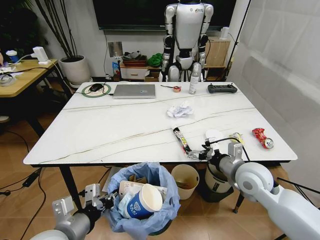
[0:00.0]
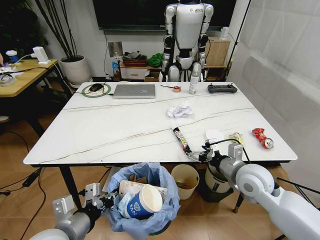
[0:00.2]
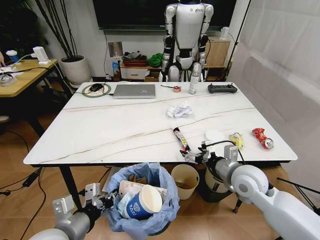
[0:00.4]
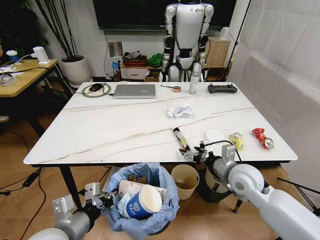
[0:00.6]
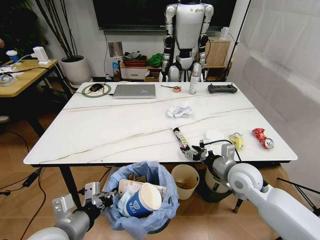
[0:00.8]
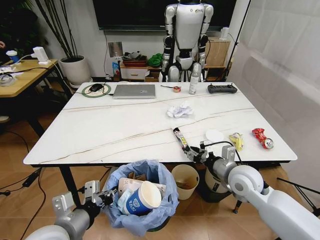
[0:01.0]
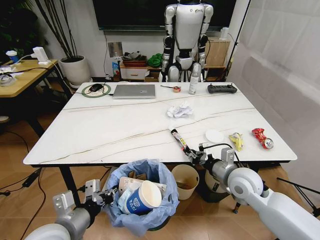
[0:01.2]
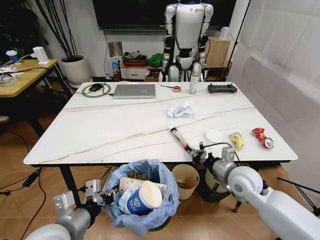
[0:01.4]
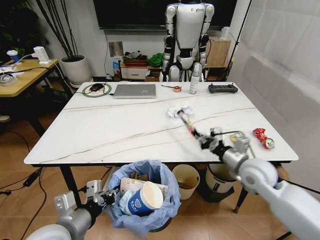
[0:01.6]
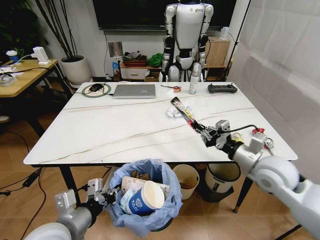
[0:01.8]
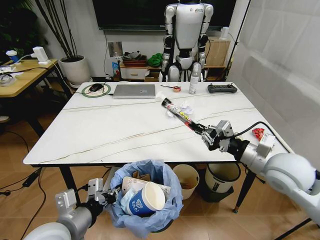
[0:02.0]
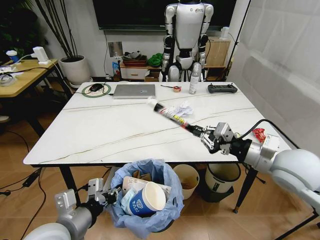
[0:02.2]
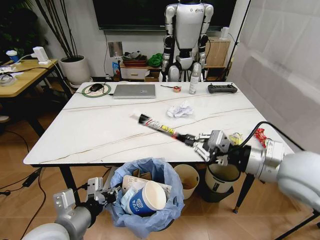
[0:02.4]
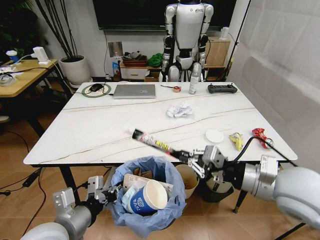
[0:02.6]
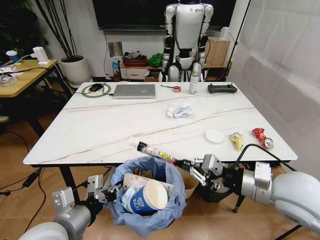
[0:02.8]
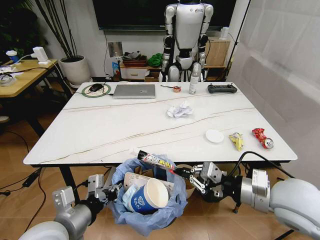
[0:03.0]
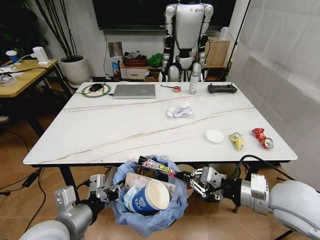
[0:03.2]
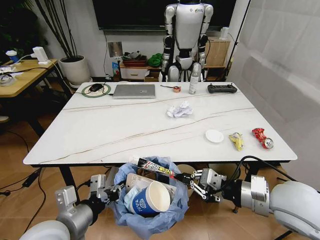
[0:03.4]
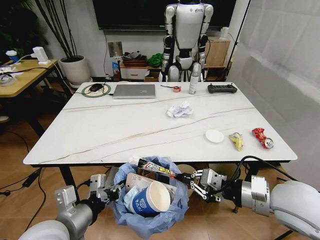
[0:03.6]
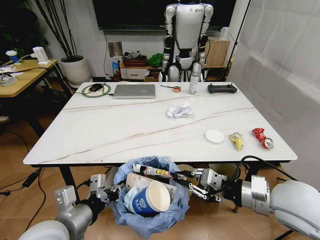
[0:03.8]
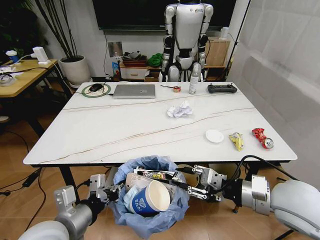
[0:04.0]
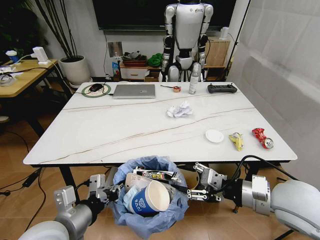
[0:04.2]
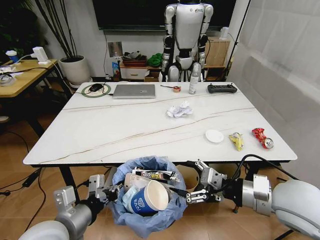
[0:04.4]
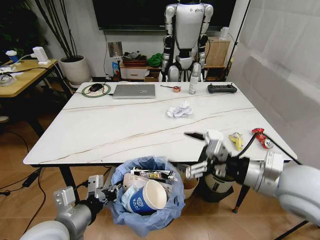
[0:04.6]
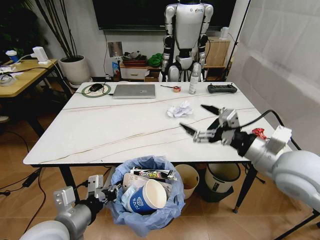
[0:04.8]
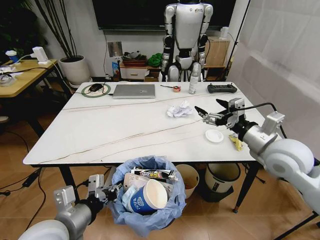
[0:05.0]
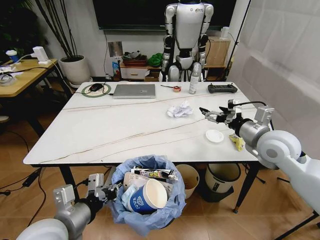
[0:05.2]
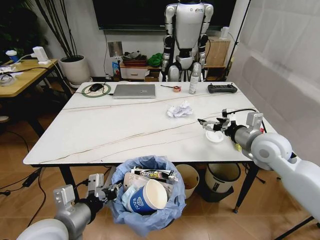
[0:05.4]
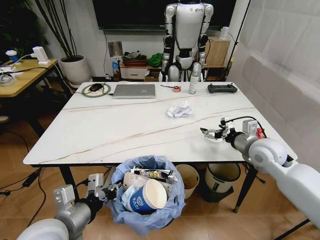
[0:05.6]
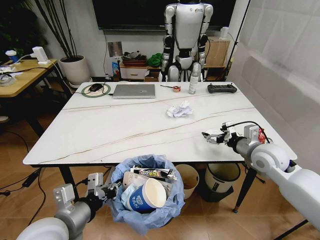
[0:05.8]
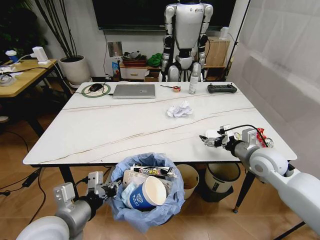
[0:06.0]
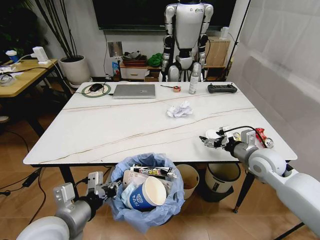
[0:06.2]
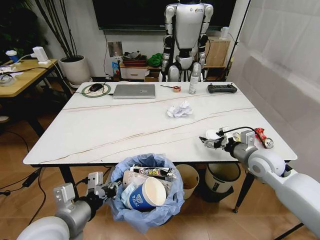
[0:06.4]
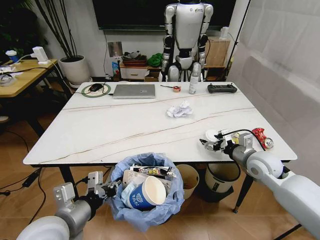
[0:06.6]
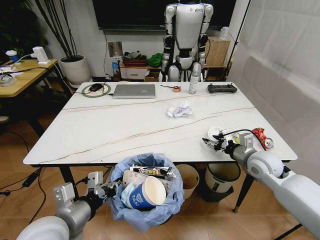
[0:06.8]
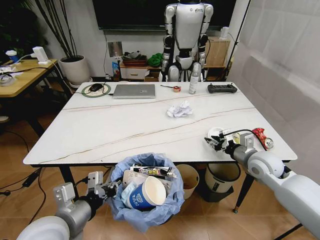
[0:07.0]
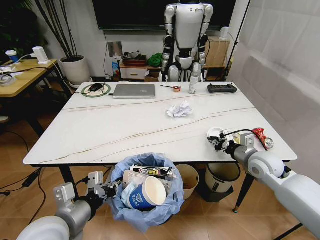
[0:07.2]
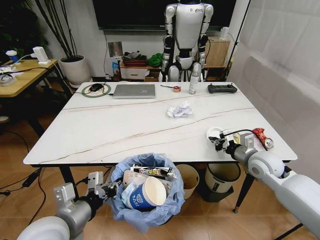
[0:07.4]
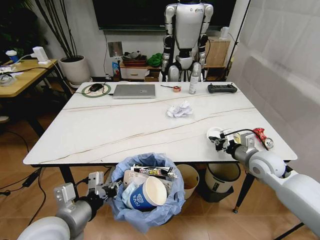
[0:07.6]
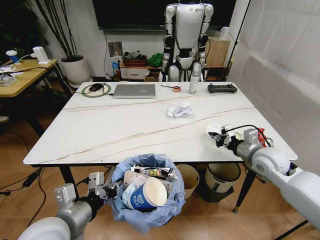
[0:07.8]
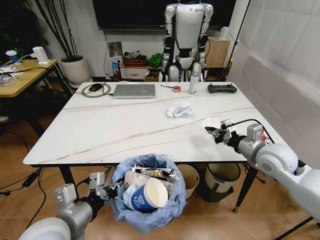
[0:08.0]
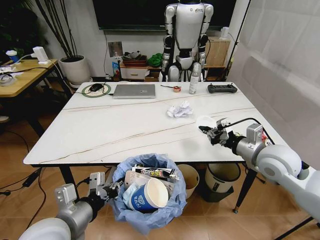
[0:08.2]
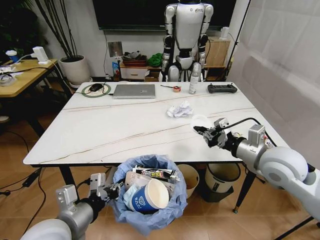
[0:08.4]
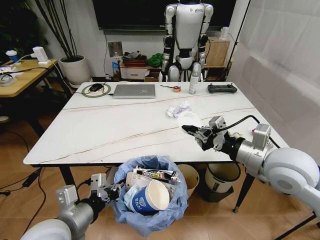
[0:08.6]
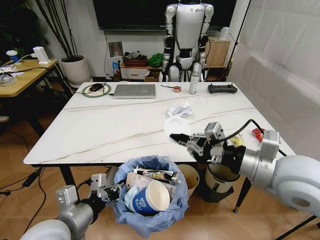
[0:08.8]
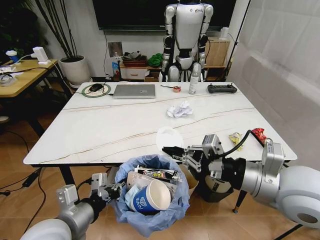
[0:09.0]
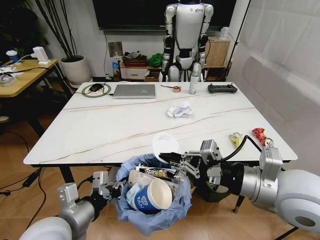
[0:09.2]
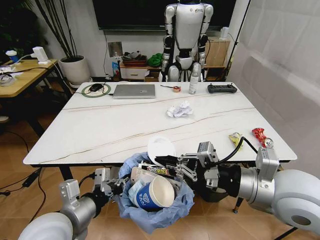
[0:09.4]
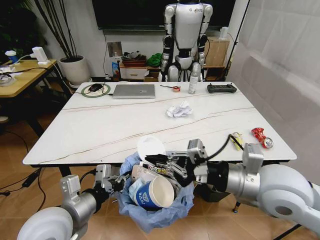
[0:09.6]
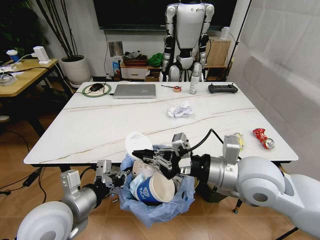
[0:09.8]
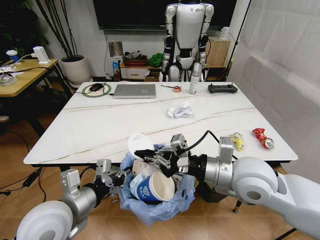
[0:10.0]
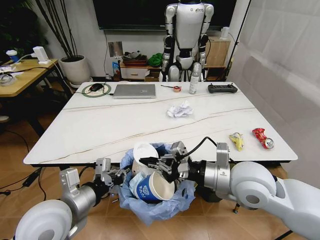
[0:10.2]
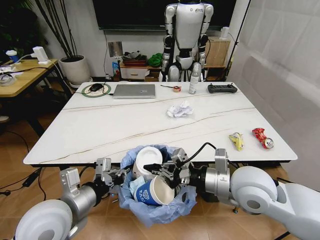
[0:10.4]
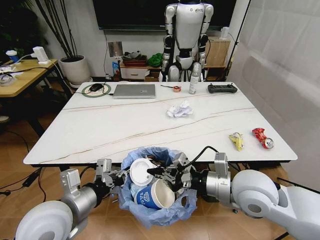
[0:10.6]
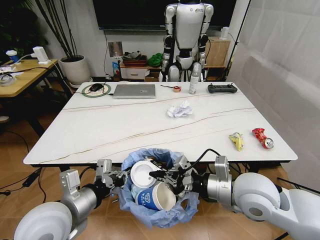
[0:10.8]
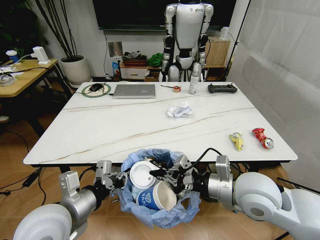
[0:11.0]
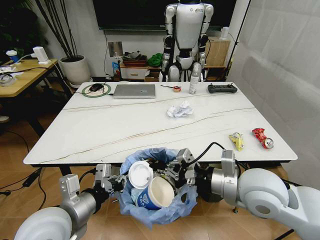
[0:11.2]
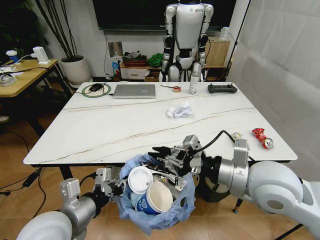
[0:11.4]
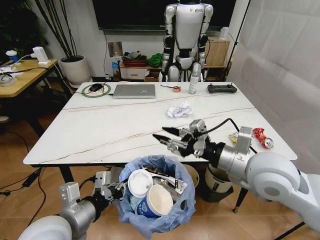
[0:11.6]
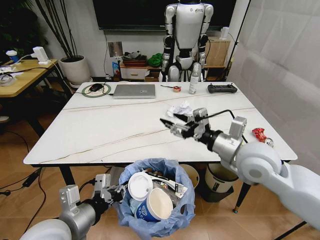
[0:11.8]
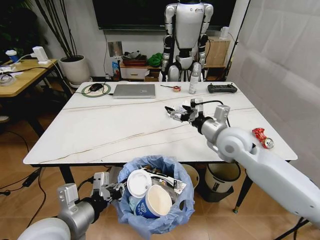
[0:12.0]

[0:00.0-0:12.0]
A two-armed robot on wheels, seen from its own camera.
Task of the whole recording: Pick up the trash bin and place the trash from the table into it.
0:00.0 to 0:01.6: The right gripper closes.
0:01.6 to 0:03.0: The right gripper goes roughly 15 cm backward and upward.
0:03.0 to 0:04.4: The right gripper opens its fingers.
0:04.4 to 0:06.0: The right gripper is displaced forward and downward by some 15 cm.
0:06.0 to 0:07.6: The right gripper closes its fingers.
0:07.6 to 0:09.0: The right gripper travels backward, upward and to the left by some 25 cm.
0:09.0 to 0:10.4: The right gripper shifts about 5 cm downward.
0:10.4 to 0:12.0: The right gripper moves forward, about 10 cm, and opens.

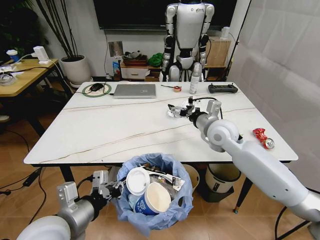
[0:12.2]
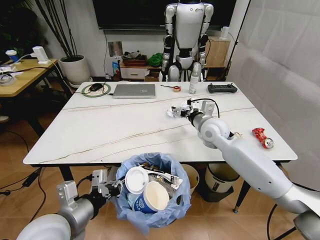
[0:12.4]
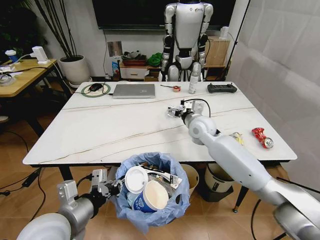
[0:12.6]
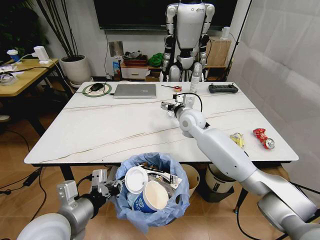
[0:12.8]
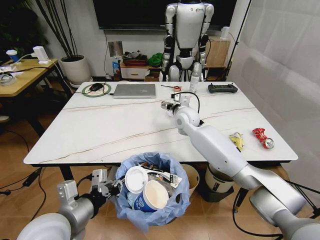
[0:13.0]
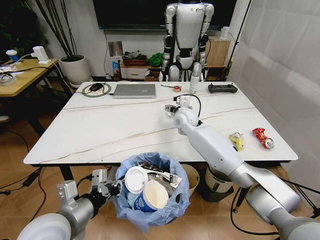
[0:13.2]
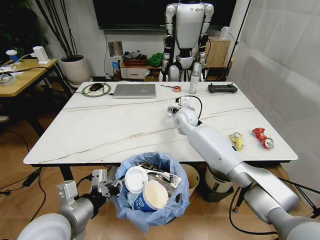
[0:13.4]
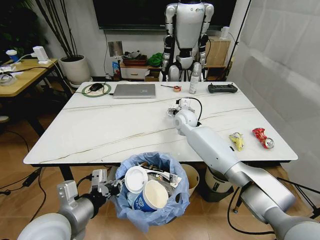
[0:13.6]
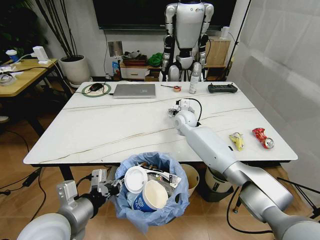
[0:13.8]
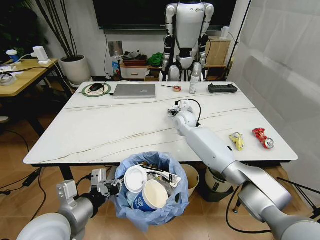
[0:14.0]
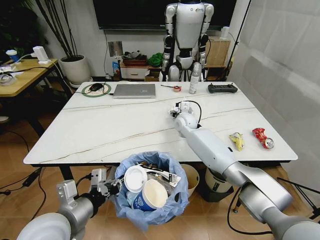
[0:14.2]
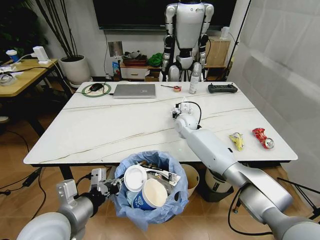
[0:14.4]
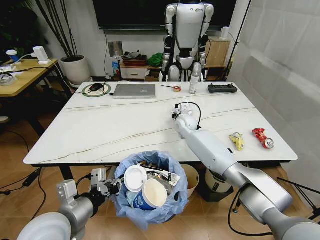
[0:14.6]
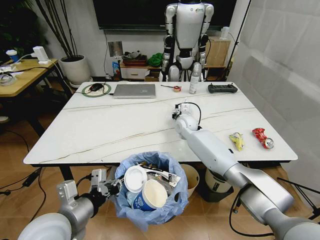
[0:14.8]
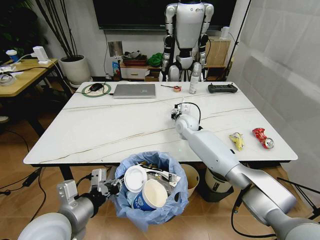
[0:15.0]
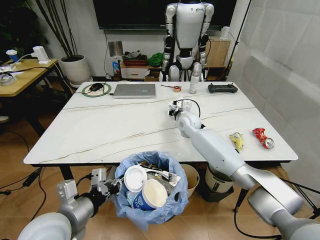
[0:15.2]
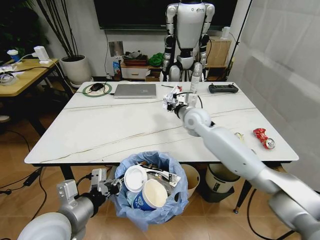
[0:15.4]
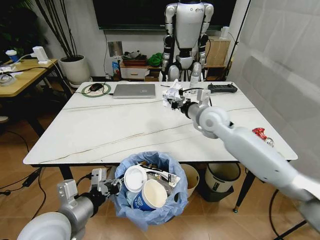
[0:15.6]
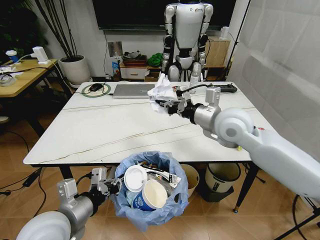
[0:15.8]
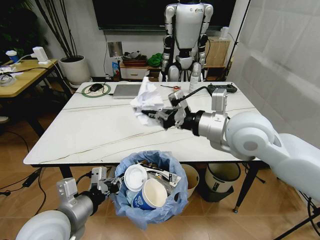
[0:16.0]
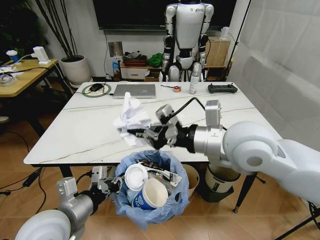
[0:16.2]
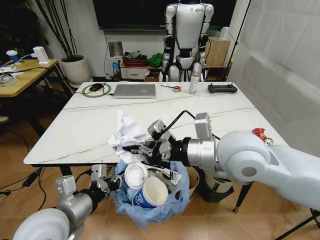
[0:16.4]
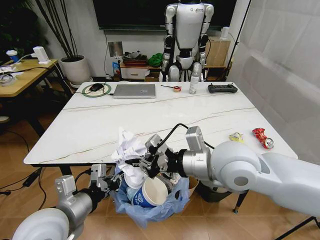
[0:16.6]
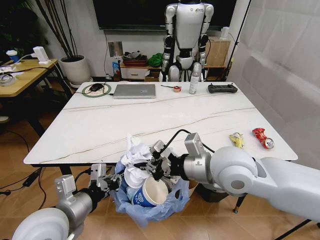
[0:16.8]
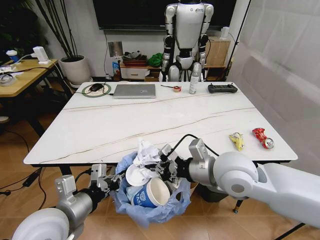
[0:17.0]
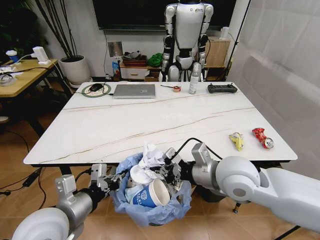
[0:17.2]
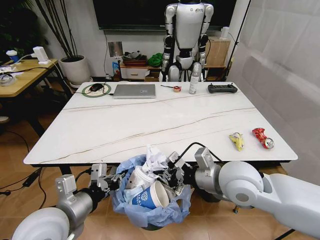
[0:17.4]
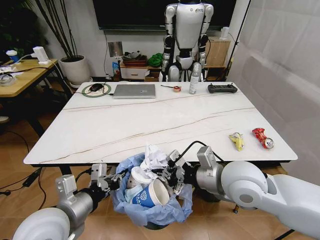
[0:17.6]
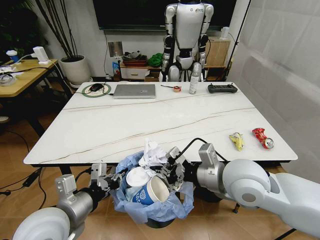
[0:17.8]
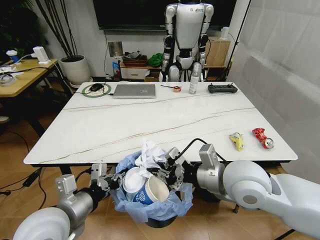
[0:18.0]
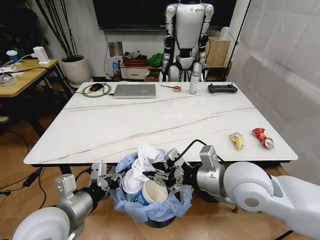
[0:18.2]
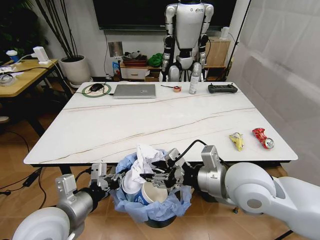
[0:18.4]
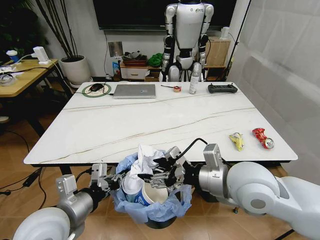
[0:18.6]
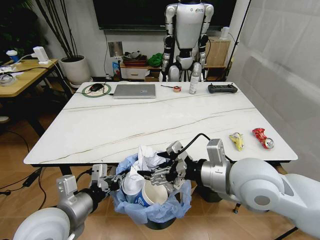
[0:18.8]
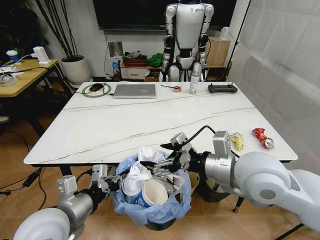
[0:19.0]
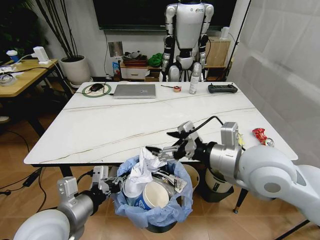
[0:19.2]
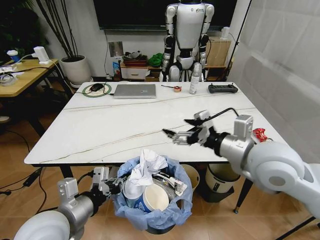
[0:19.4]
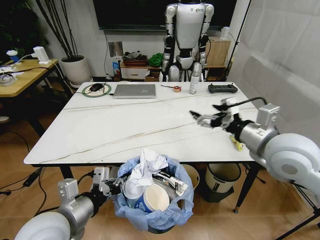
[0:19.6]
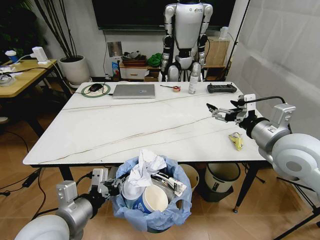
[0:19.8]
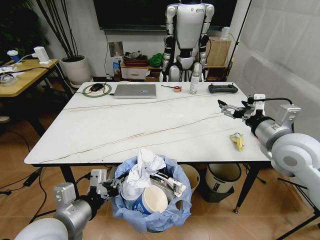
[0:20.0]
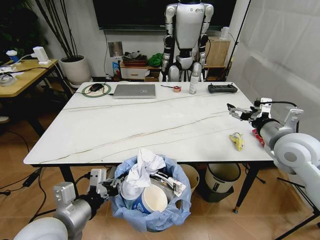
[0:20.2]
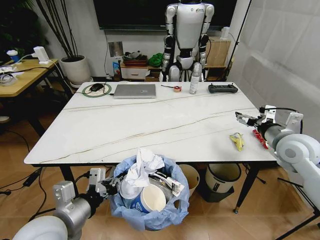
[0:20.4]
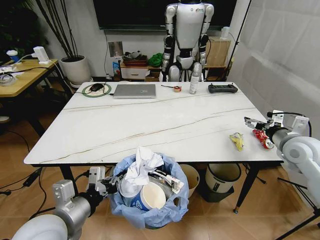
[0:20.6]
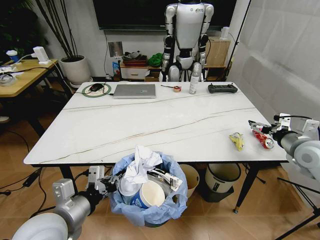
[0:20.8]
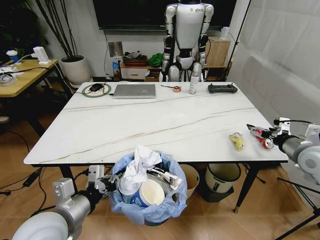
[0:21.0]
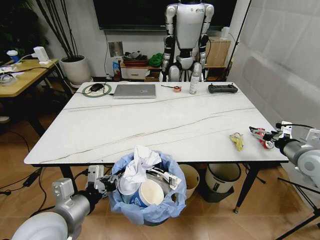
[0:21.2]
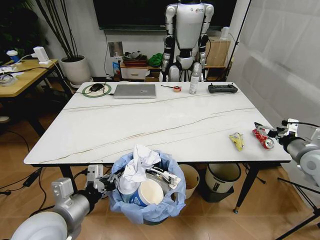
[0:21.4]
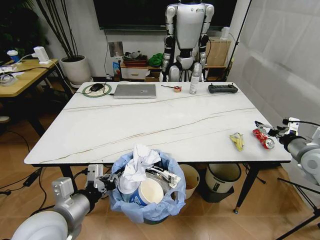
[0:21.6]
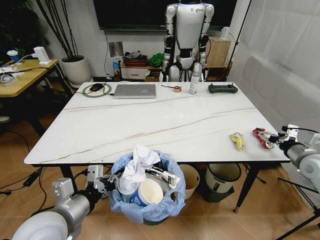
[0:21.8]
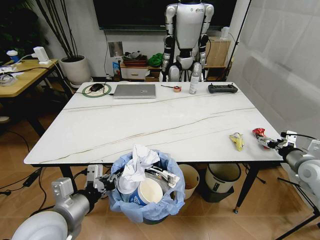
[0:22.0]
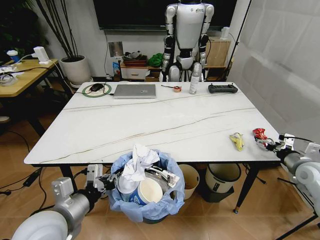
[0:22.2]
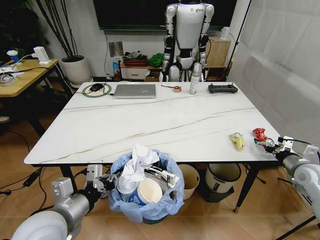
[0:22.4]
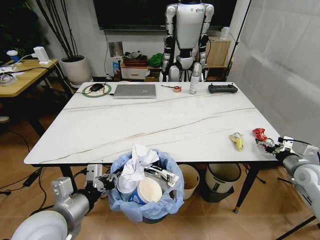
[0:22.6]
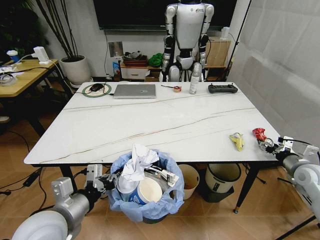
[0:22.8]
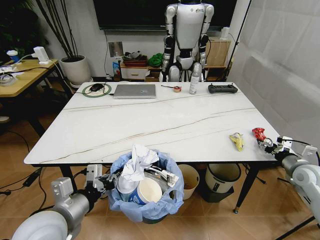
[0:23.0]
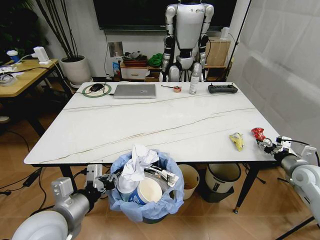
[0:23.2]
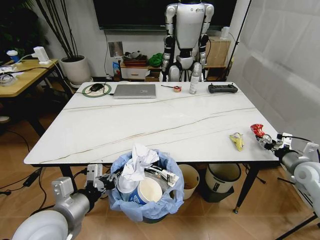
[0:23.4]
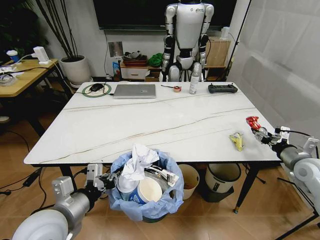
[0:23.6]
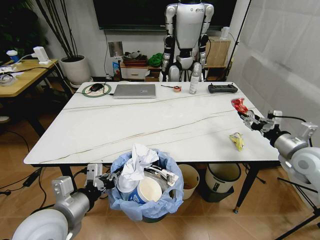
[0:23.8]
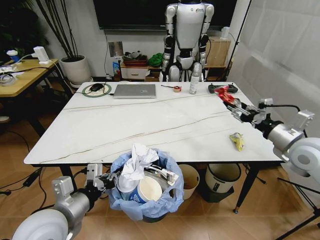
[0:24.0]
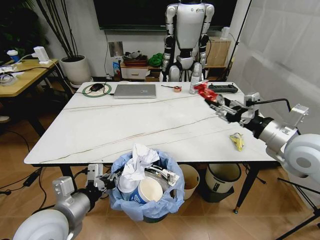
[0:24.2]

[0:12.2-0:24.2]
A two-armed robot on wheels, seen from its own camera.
Task of the whole recording: Pick up the trash bin and place the trash from the table into it.
0:12.2 to 0:13.8: The right gripper is displaced forward, to the left and downward by approximately 20 cm.
0:13.8 to 0:15.2: The right gripper closes.
0:15.2 to 0:16.6: The right gripper is displaced backward and upward by approximately 35 cm.
0:16.6 to 0:18.2: The right gripper changes place by roughly 5 cm, and opens.
0:18.2 to 0:19.8: The right gripper heads to the right and forward, covering about 15 cm, and opens.
0:19.8 to 0:21.2: The right gripper shifts roughly 20 cm to the right and downward.
0:21.2 to 0:22.6: The right gripper moves downward, about 10 cm.
0:22.6 to 0:24.2: The right gripper travels upward and to the left by about 20 cm.
